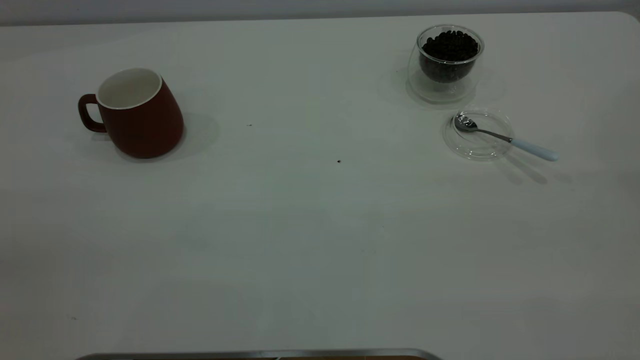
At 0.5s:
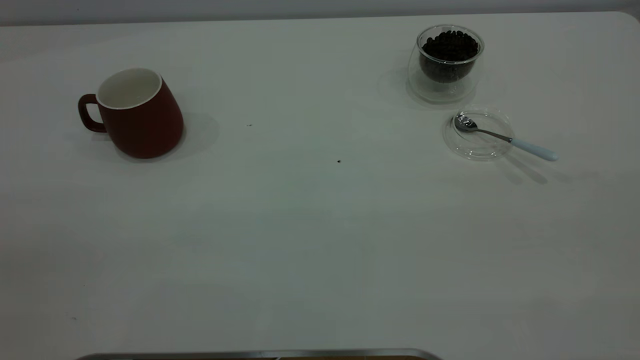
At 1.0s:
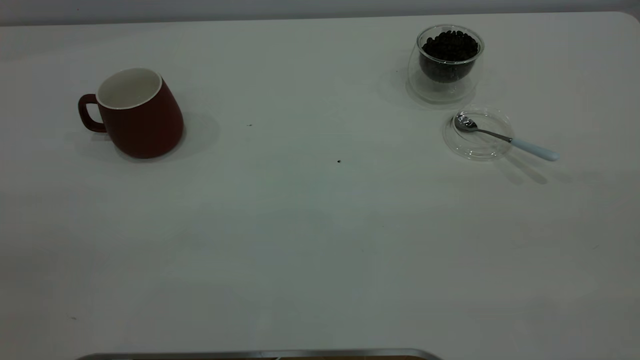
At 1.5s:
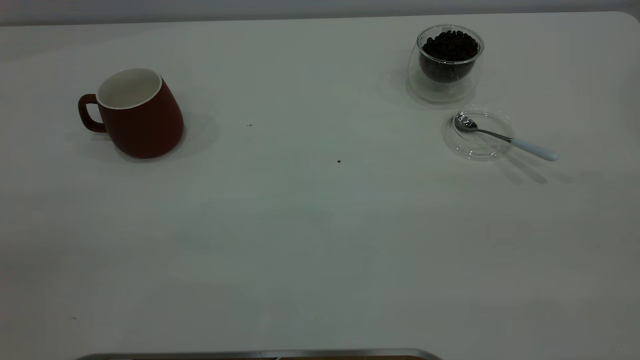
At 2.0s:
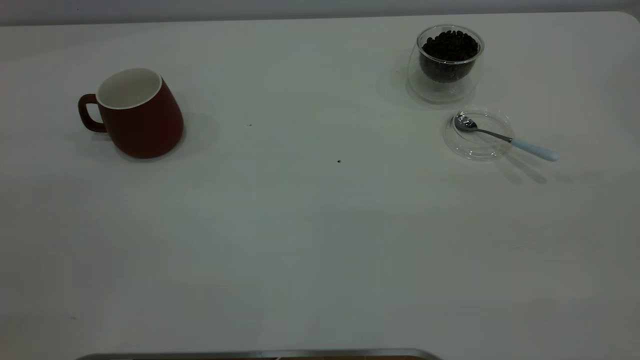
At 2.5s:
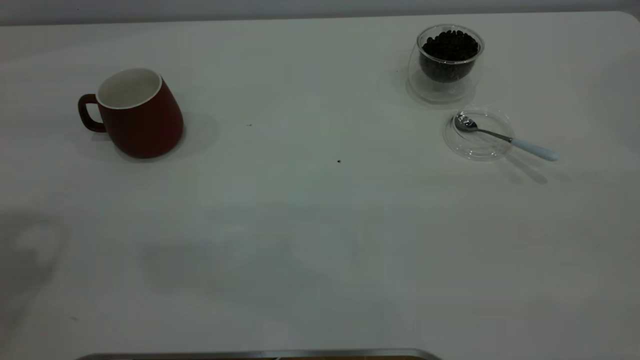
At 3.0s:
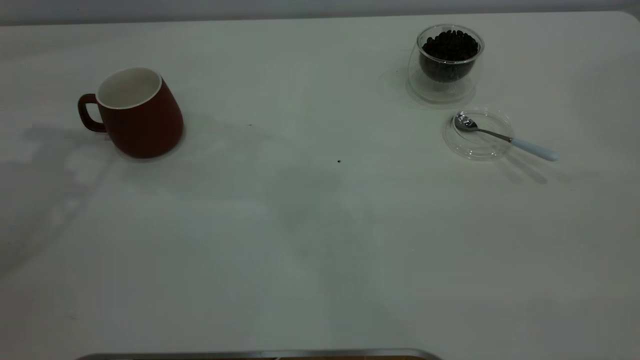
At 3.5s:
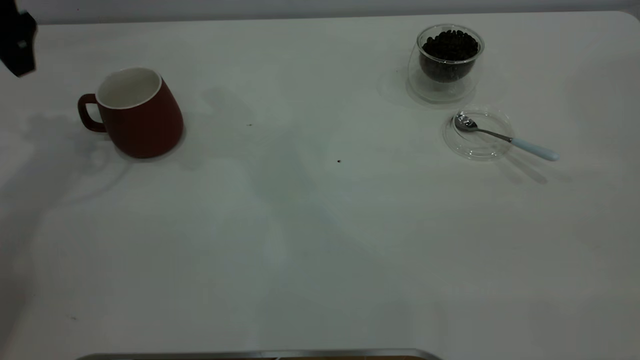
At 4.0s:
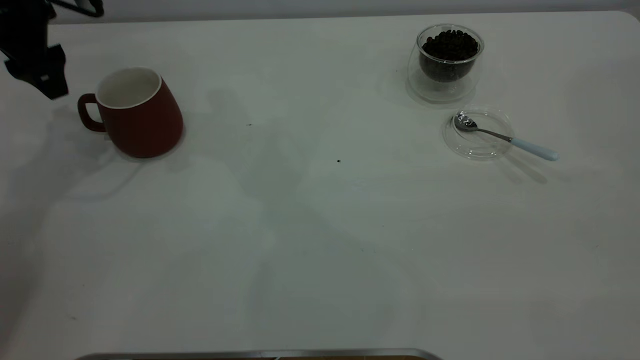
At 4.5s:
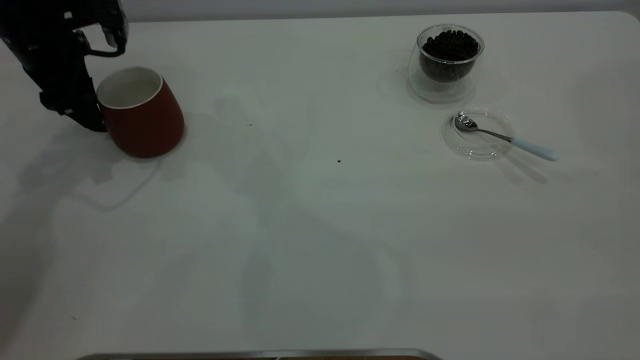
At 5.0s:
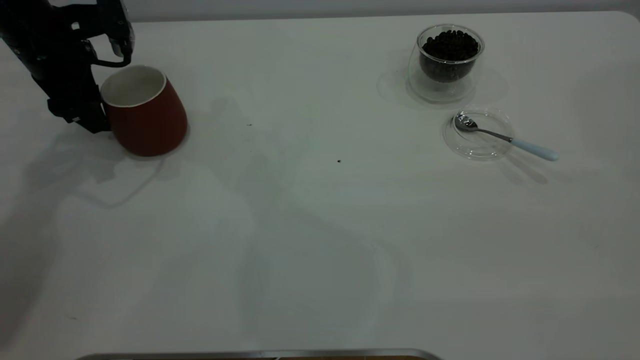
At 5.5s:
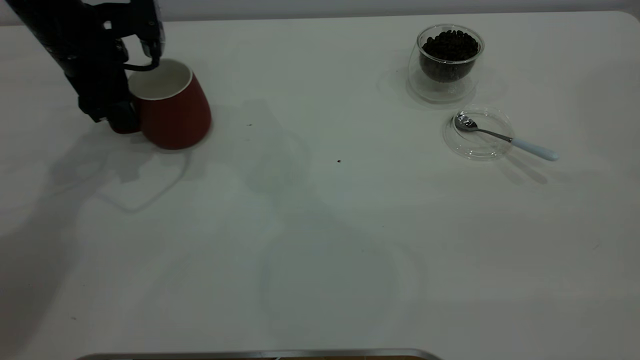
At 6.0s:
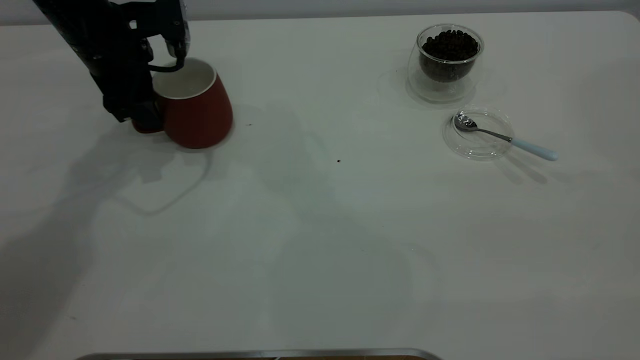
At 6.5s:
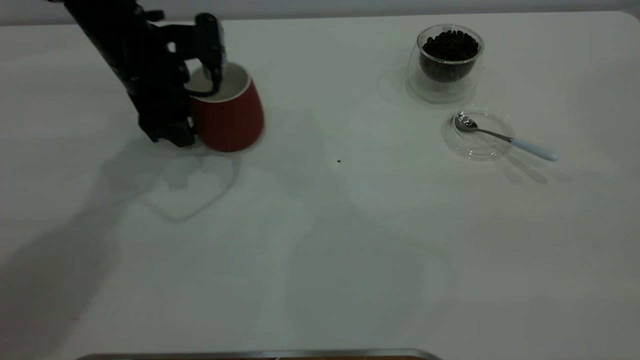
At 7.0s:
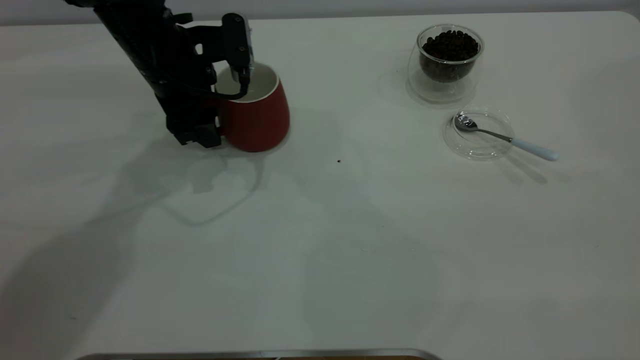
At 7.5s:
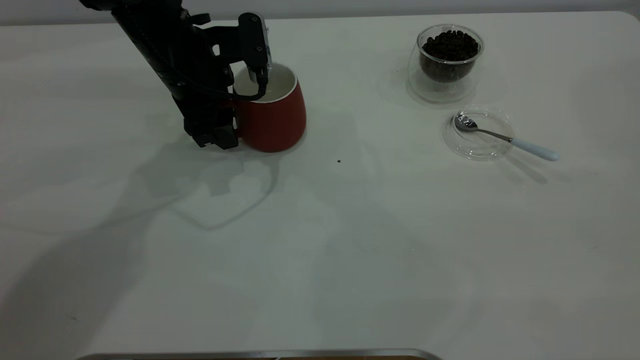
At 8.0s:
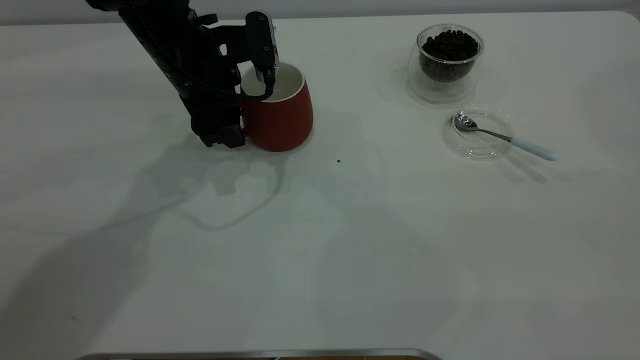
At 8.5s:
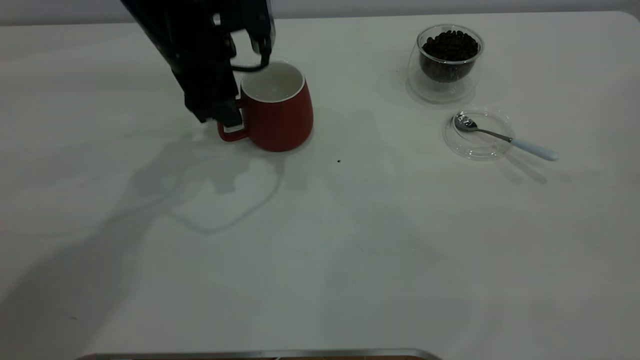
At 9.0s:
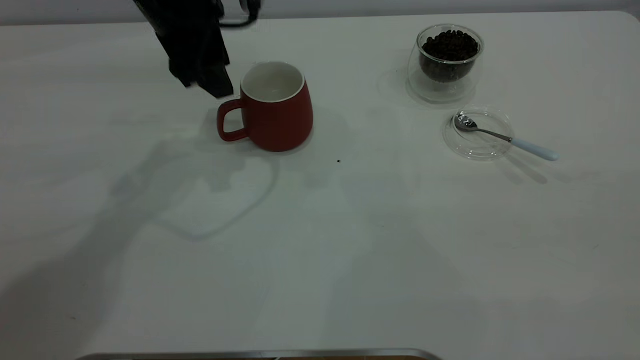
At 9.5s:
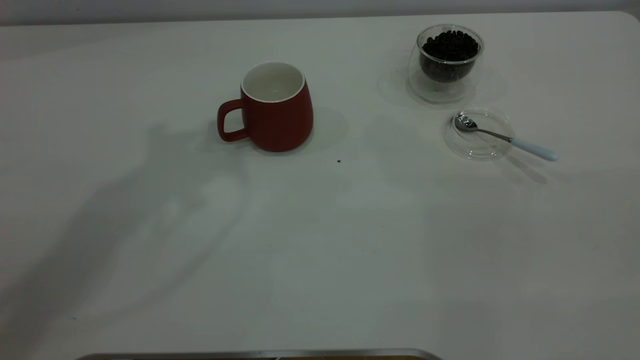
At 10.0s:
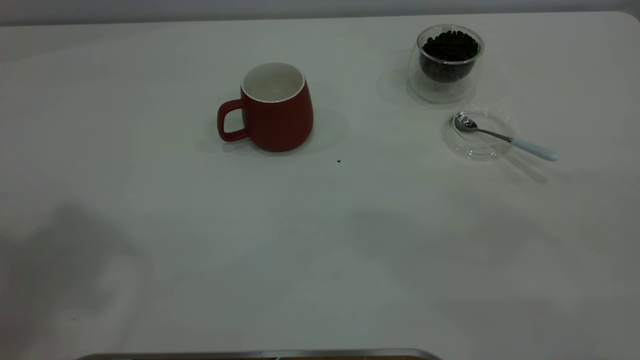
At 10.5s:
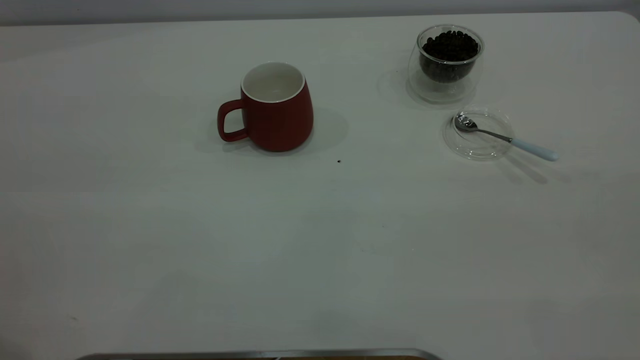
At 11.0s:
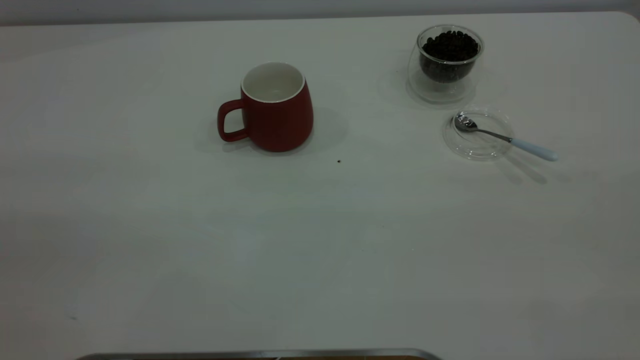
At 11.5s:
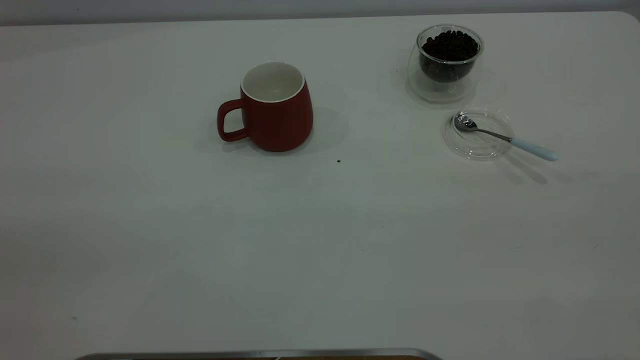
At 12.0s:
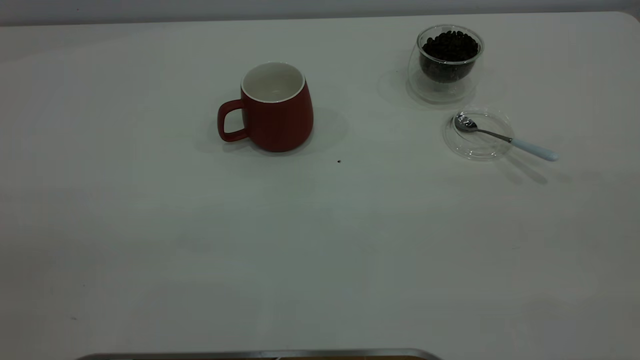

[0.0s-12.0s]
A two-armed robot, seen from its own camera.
Task of the whole recording: the left gripper place the red cup in the center of the table, the right gripper take the blue spoon from the cup lid and scoop out the coffee beans from the coffee cup and put them into the red cup, the right gripper put the spoon back into the cup lid.
Step, 0.0s to 9.0s: Move the cup to the center of view.
2.0s to 4.0s: The left gripper travels forward and downward by approximately 40 cm, and opens up.
4.0s to 6.0s: The left gripper shifts roughly 10 cm to the right, and closes its fingers.
6.0s to 8.0s: The left gripper is displaced to the right by approximately 10 cm.
8.0s to 10.0s: The left gripper moves upward and backward, about 50 cm.

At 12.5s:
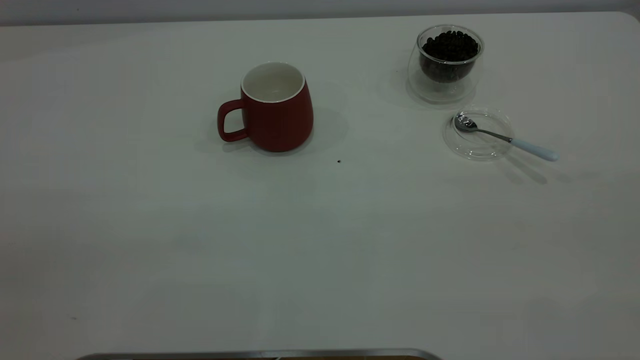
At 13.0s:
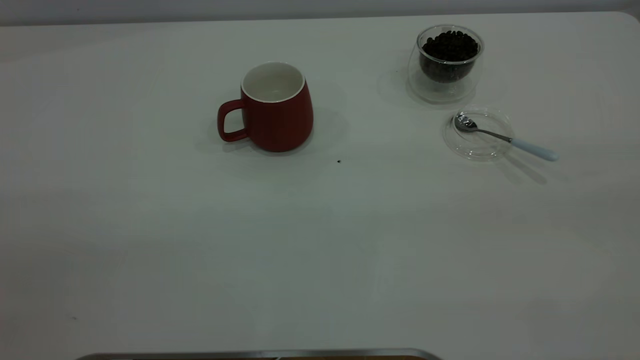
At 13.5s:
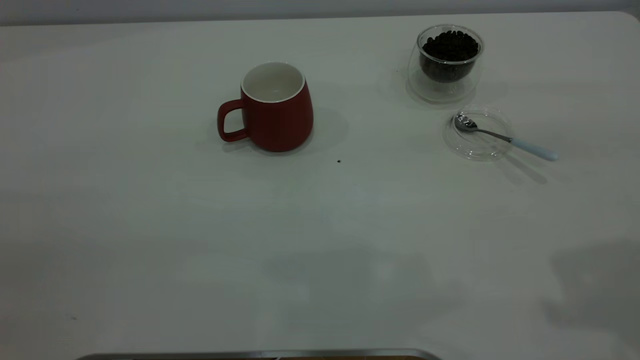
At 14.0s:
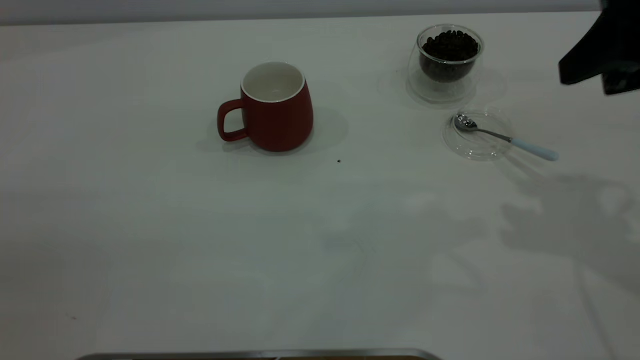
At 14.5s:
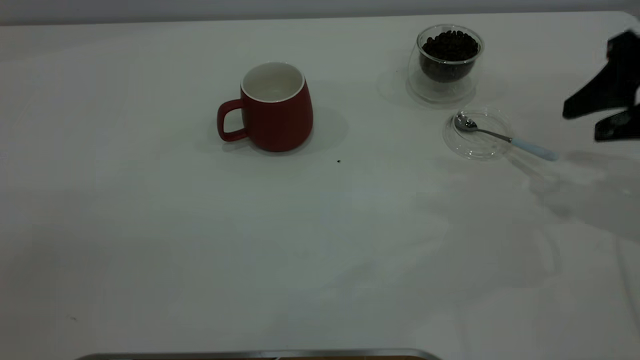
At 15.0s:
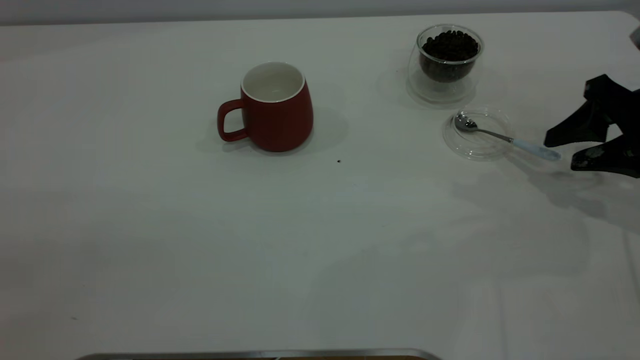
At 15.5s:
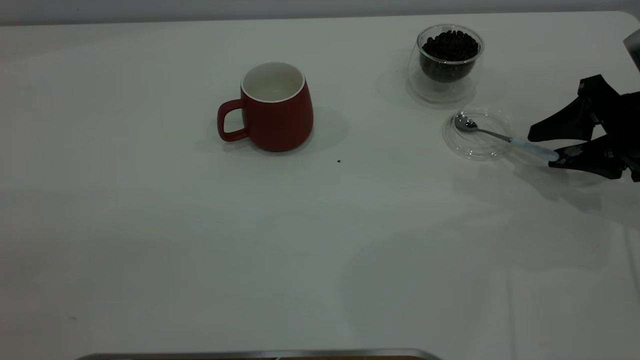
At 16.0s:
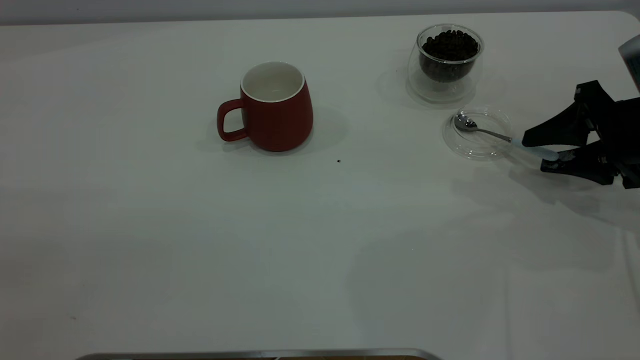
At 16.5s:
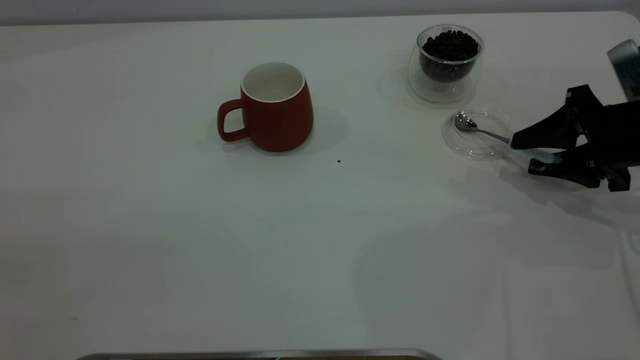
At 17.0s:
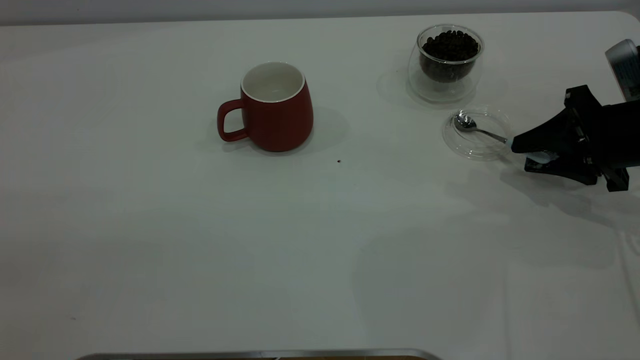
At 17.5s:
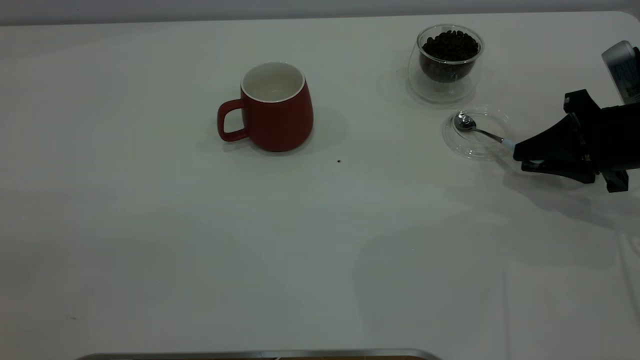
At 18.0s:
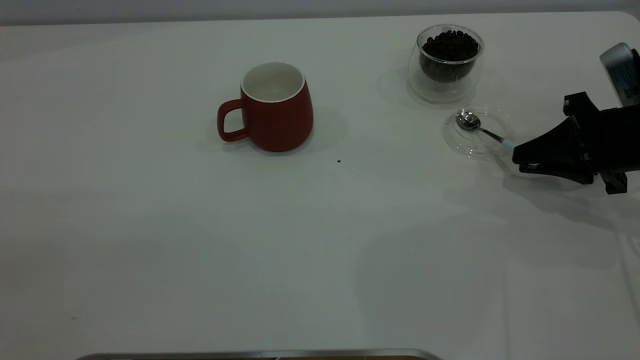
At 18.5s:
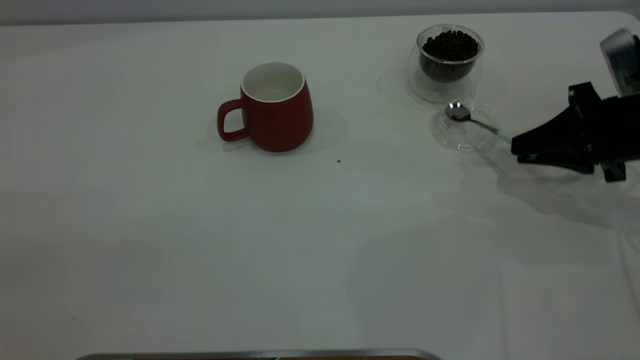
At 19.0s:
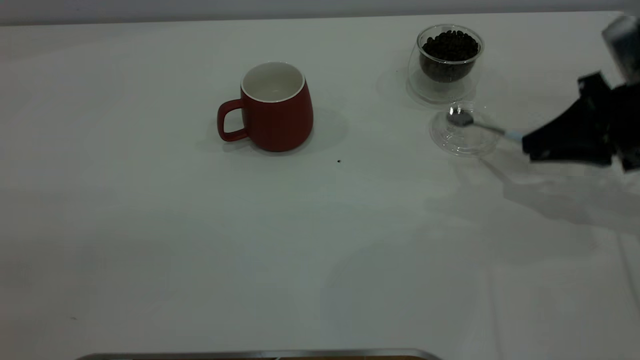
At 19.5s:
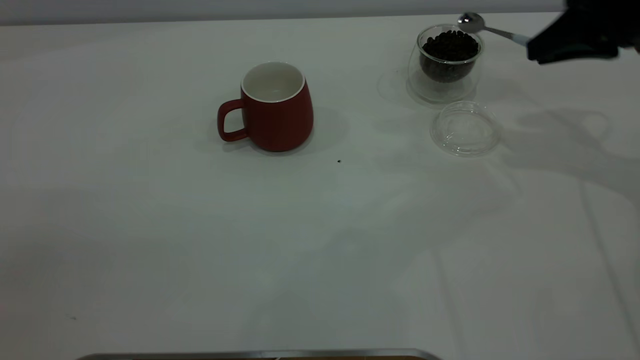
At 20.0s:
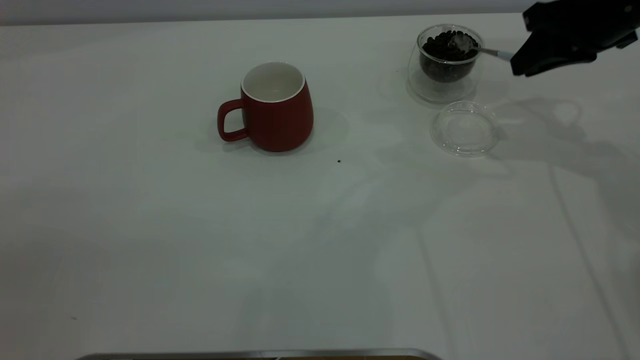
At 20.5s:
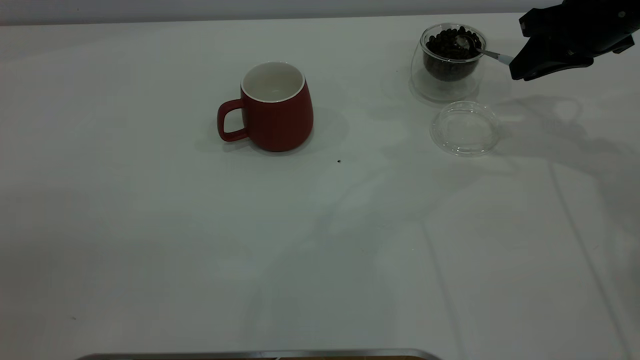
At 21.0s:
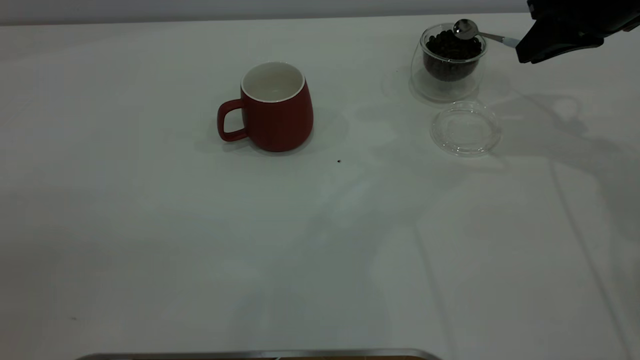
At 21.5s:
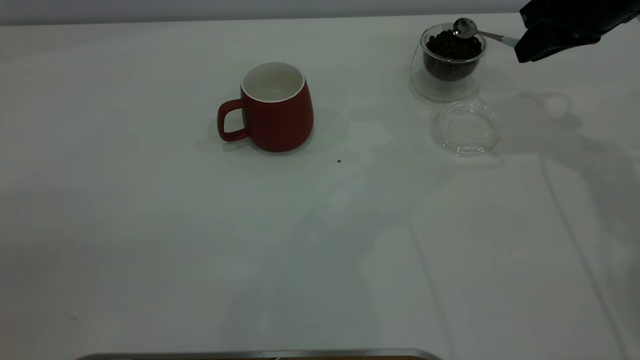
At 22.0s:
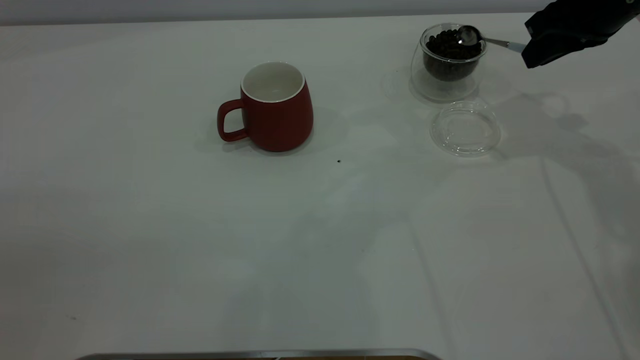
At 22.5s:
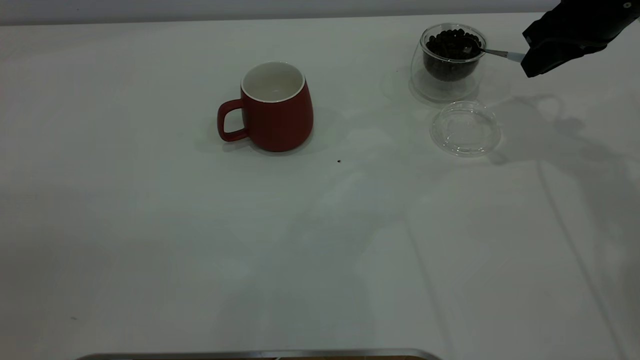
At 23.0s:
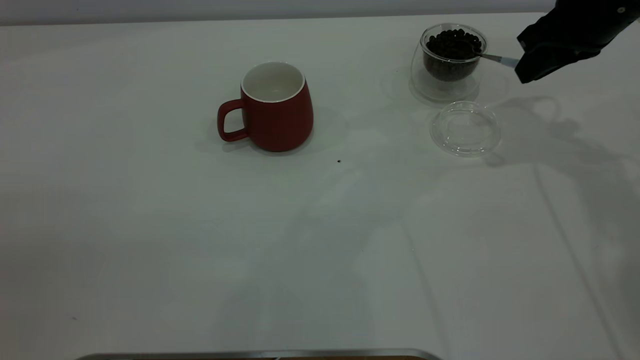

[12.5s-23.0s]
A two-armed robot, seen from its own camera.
Task of the whole recording: the left gripper place the red cup in the center of the table, the right gripper take the blue spoon from the cup lid and scoop out the coffee beans from the coffee cup and put them into the red cup, the right gripper put the spoon back into the cup lid.
Step, 12.5s to 18.5s: Pick up the spoon.
12.5s to 14.5s: The right gripper moves forward and downward, about 35 cm.
14.5s to 16.5s: The right gripper travels downward by about 10 cm.
16.5s to 19.0s: The right gripper closes.
19.0s to 21.0s: The right gripper goes approximately 10 cm forward and upward.
21.0s to 23.0s: The grippers stay close to where they were, moving slightly.
